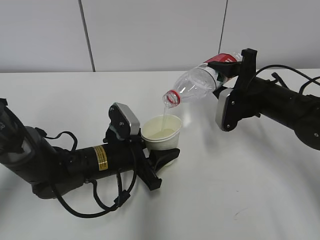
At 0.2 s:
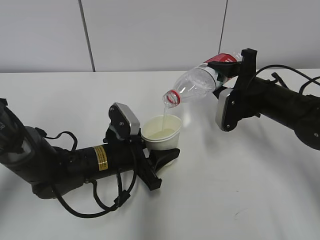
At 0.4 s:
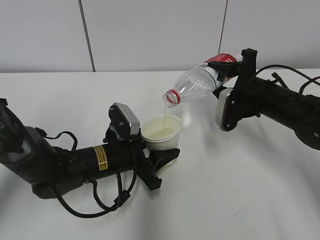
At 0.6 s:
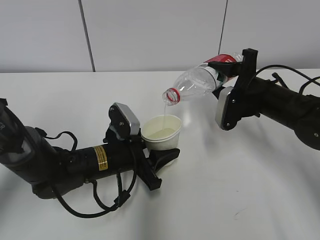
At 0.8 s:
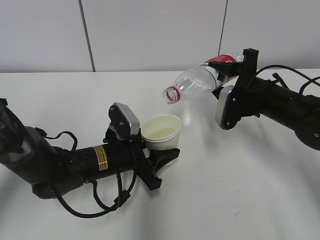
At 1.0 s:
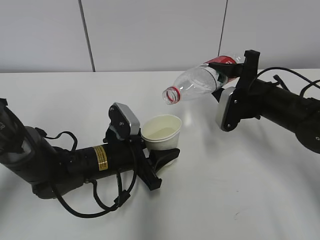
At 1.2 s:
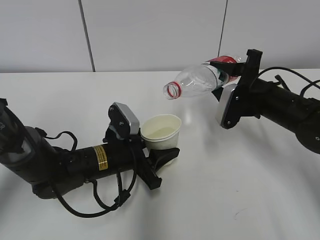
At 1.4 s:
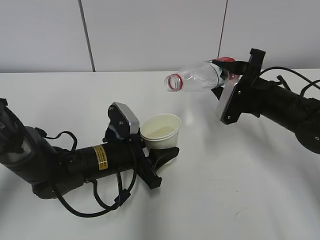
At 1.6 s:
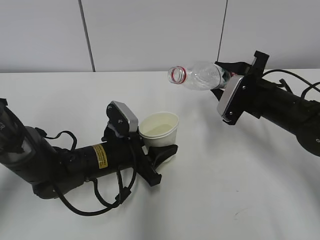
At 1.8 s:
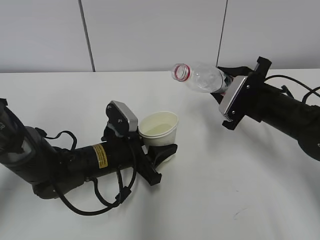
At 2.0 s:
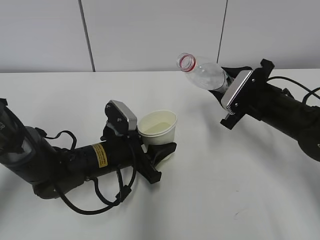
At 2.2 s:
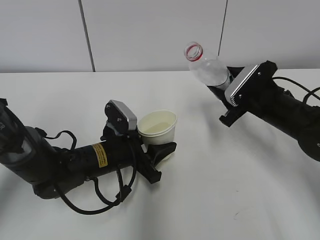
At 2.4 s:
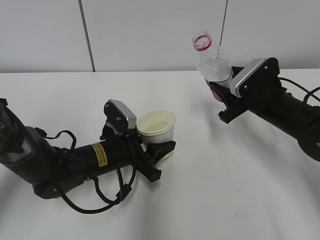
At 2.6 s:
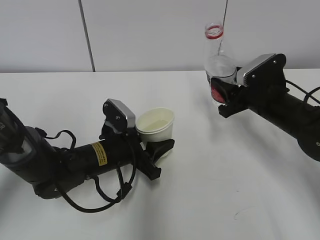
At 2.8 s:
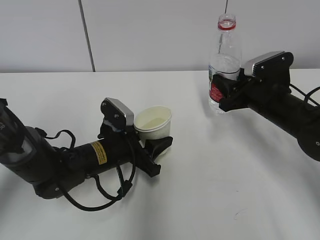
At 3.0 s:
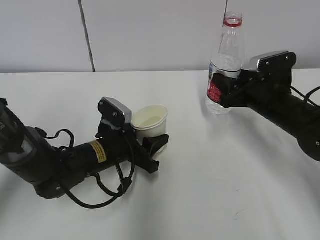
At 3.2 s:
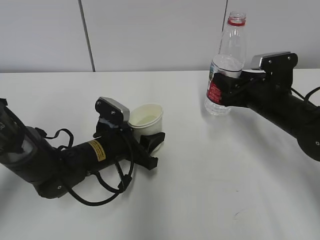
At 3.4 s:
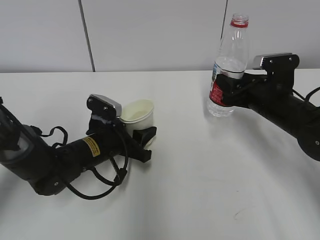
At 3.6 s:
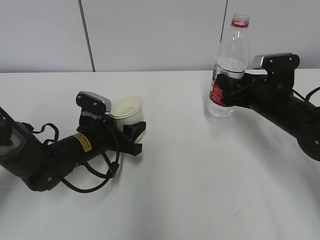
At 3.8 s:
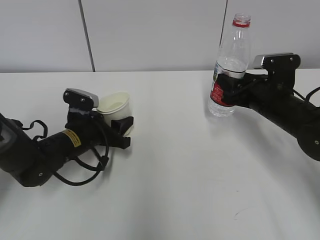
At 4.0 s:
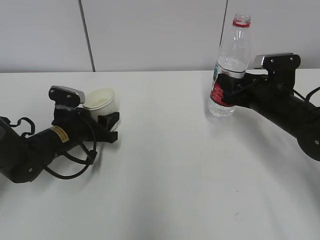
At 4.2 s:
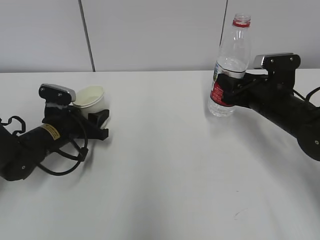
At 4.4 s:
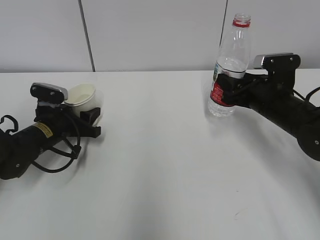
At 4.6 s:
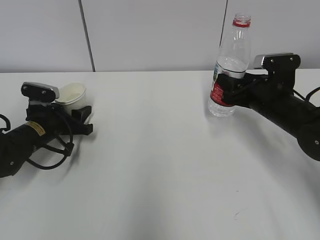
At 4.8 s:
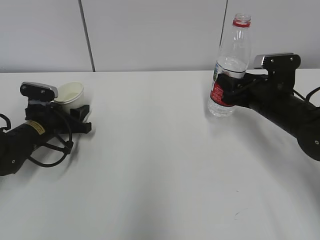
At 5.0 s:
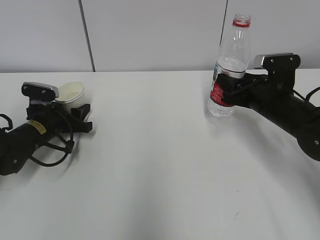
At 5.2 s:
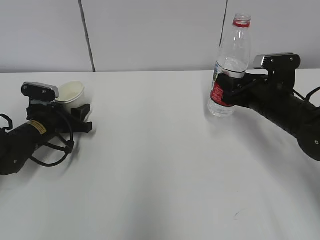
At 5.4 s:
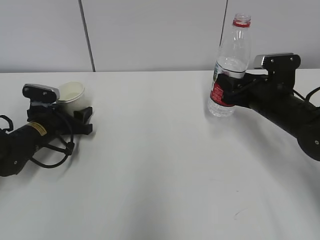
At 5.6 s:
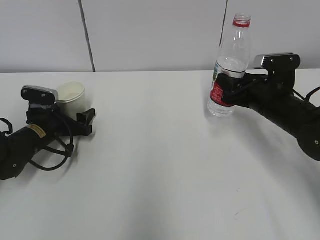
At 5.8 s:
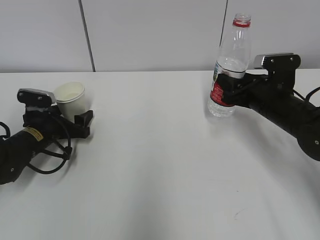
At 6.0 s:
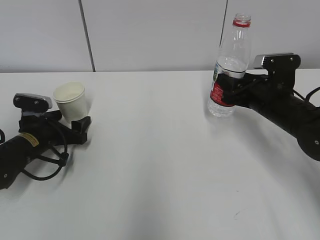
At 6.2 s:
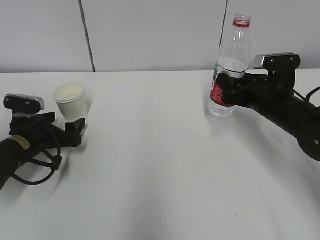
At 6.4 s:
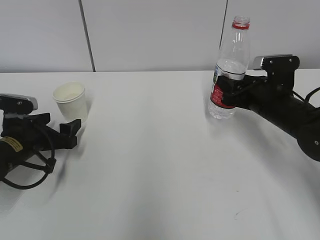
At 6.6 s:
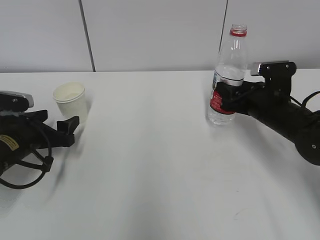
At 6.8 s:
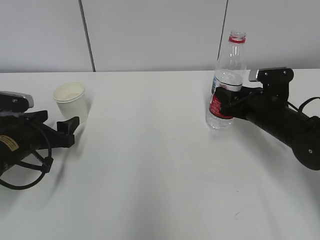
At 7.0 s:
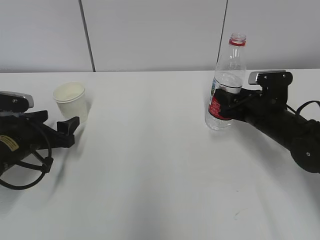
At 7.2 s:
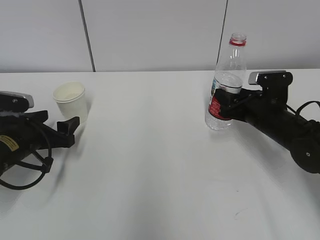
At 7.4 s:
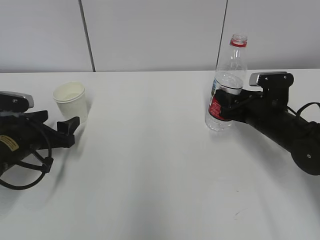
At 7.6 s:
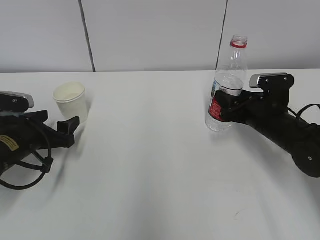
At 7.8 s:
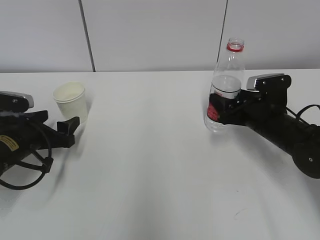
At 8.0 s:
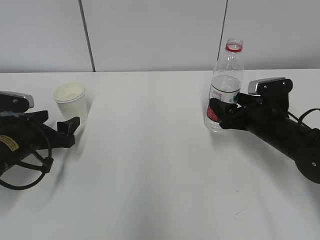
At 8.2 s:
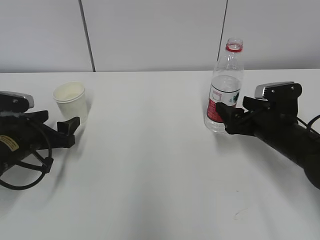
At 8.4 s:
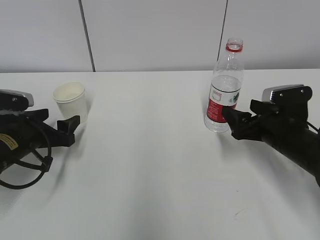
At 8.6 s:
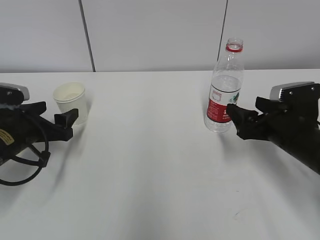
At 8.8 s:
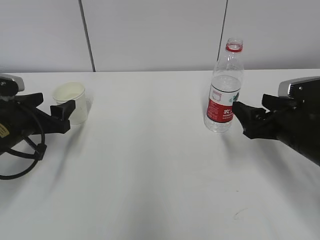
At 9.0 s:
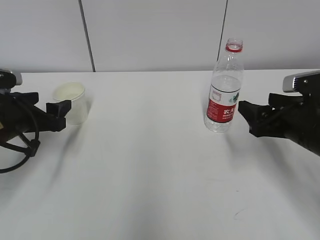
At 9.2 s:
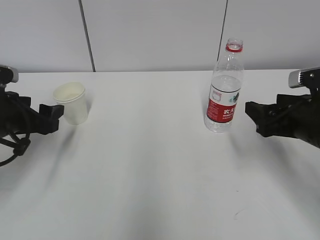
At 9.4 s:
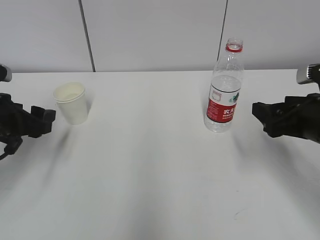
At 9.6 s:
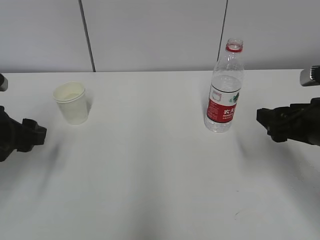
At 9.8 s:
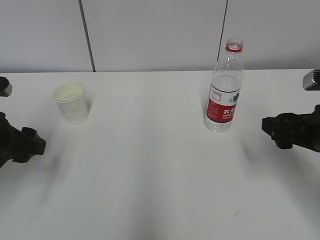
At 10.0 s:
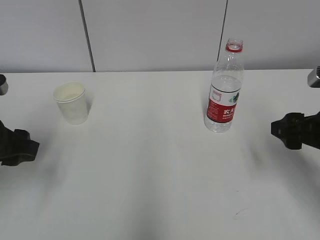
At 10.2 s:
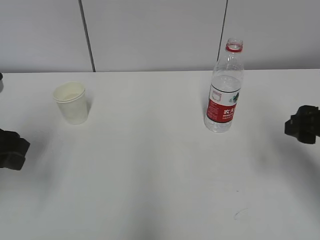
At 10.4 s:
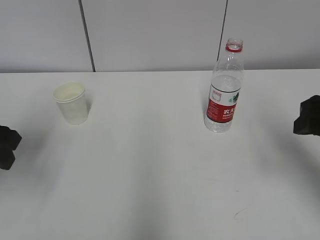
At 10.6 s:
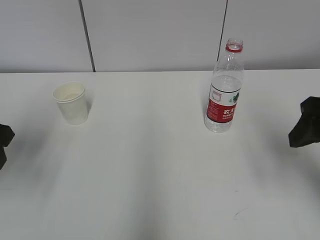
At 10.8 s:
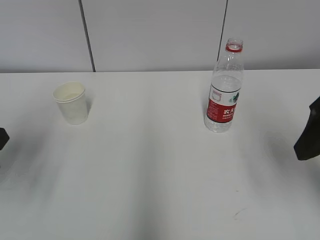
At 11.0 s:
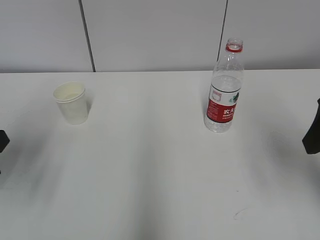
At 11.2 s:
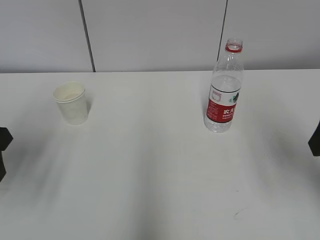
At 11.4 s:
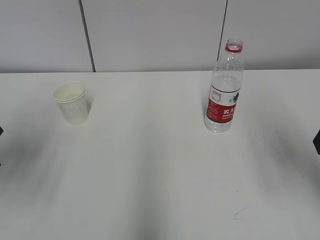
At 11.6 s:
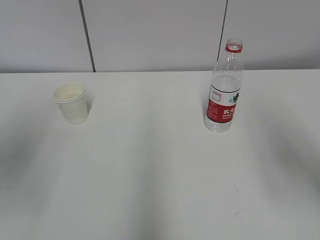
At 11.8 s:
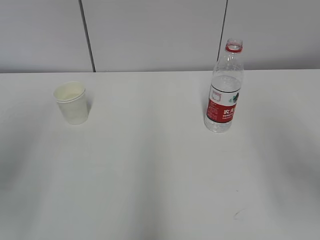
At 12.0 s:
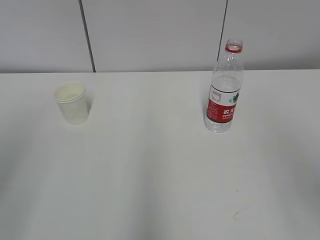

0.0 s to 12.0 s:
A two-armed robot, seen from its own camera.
Step, 0.8 to 2.8 s: Place the water bottle with the right hand.
3.0 to 4.4 s: The left gripper heads to the left and forward, covering approximately 15 cm.
4.4 to 6.0 s: The left gripper opens its fingers.
6.0 to 7.6 s: The left gripper changes place by some 5 cm.
7.6 to 9.0 s: The right gripper heads backward and upward, covering some 10 cm, and opens. Meanwhile the left gripper shifts roughly 5 cm upward.
9.0 to 10.4 s: The left gripper moves upward and backward, approximately 10 cm. Meanwhile the right gripper moves upward, approximately 10 cm.
10.4 to 12.0 s: Both grippers travel together backward and upward, some 15 cm.
